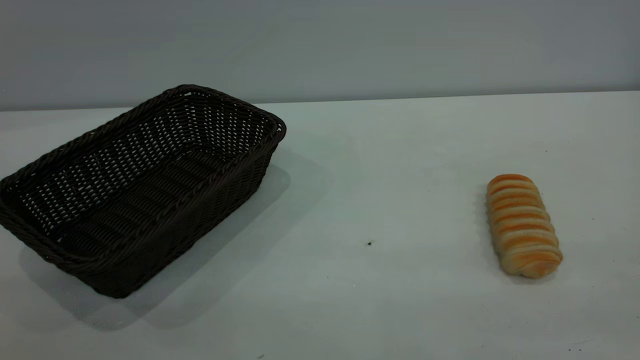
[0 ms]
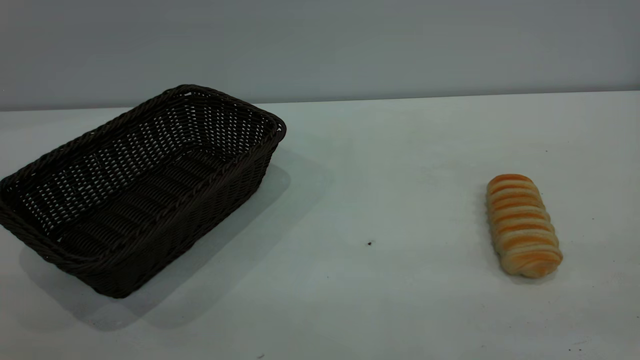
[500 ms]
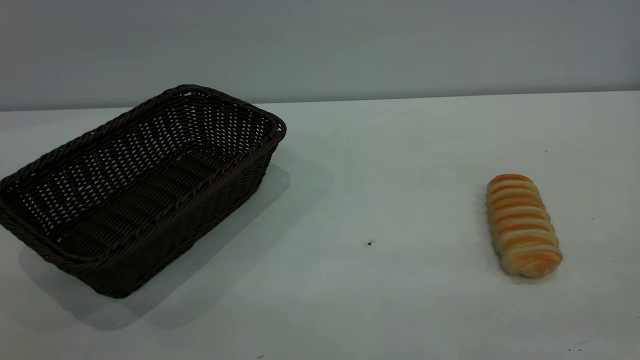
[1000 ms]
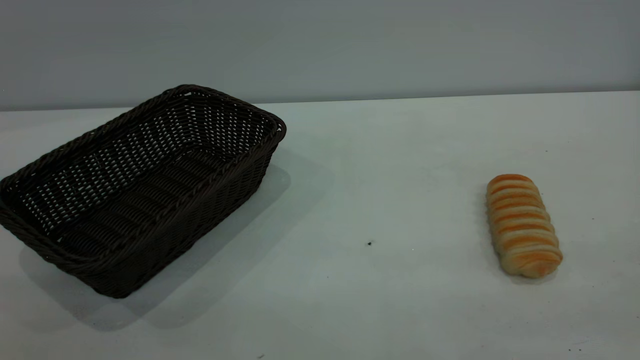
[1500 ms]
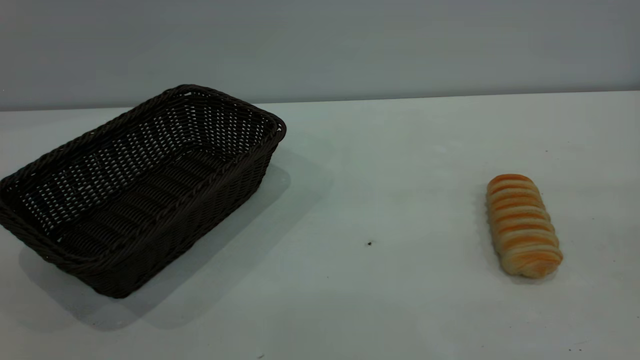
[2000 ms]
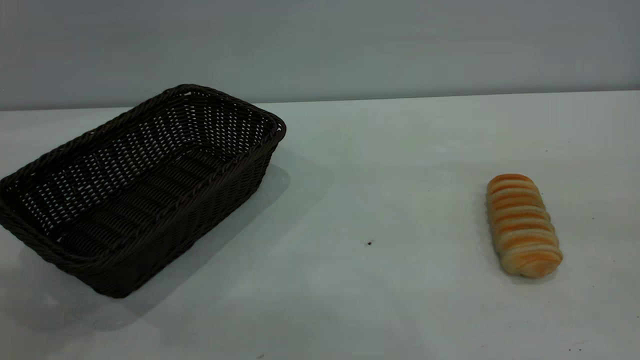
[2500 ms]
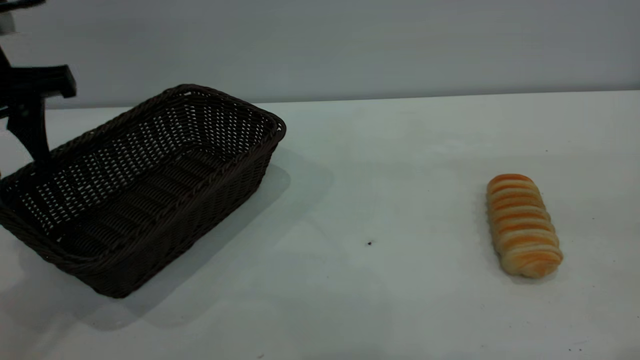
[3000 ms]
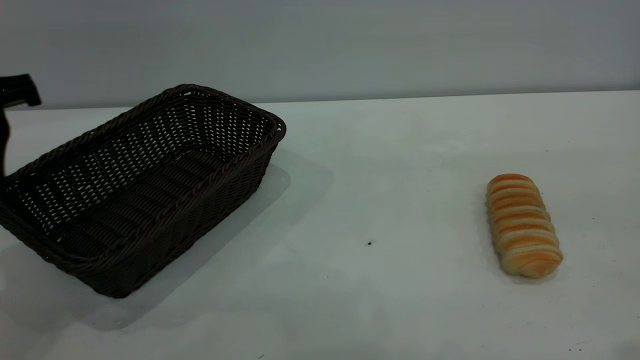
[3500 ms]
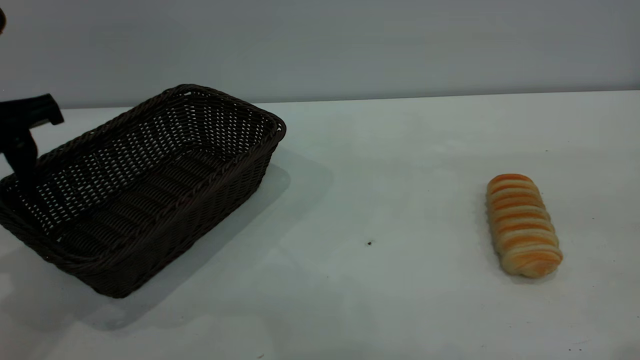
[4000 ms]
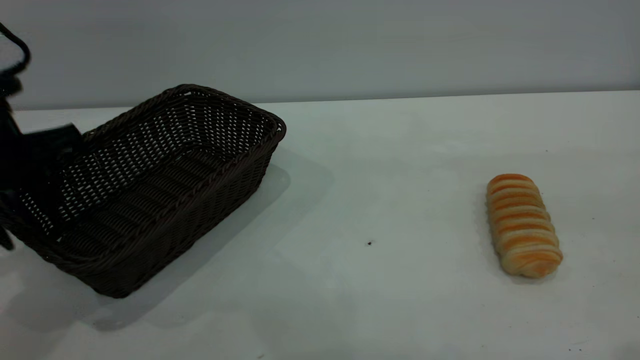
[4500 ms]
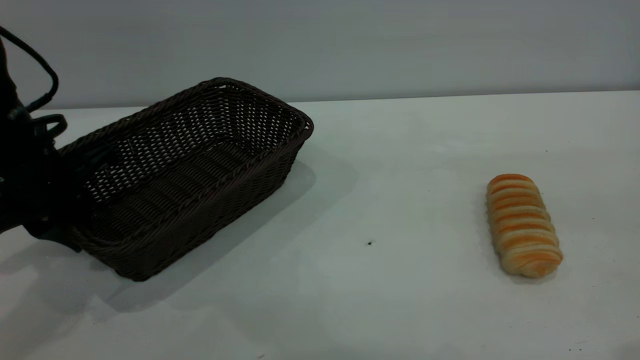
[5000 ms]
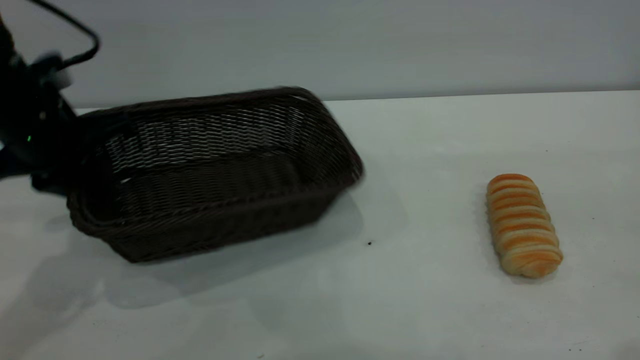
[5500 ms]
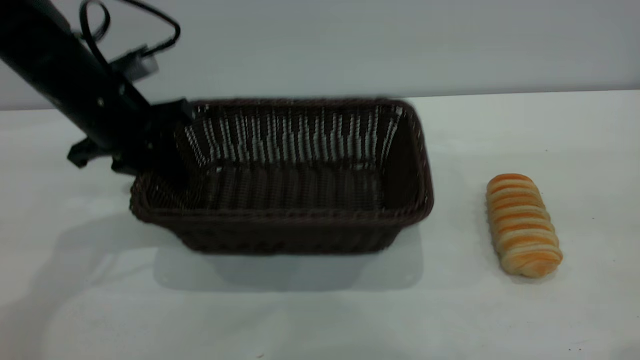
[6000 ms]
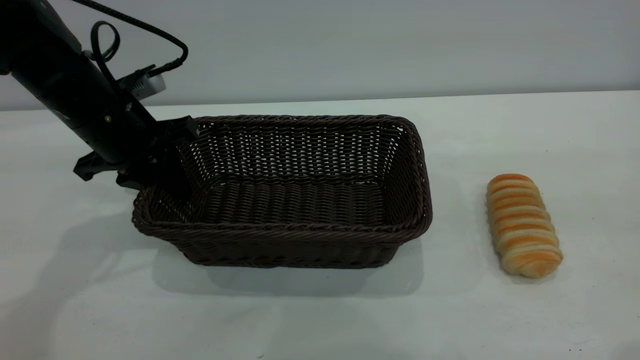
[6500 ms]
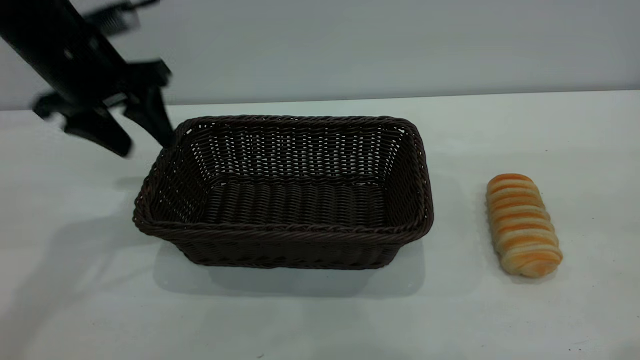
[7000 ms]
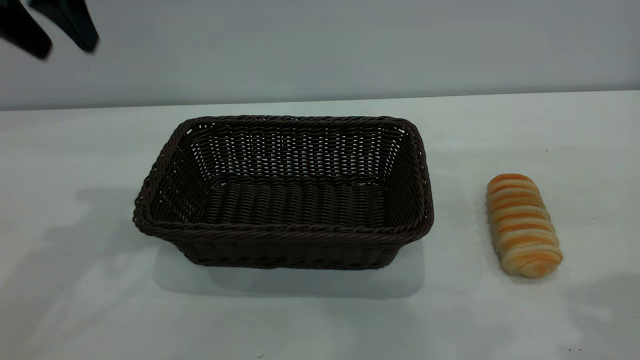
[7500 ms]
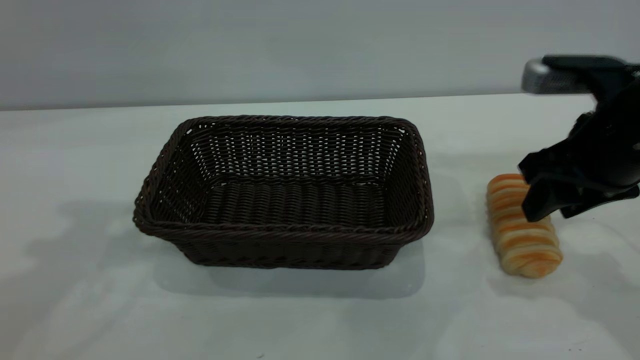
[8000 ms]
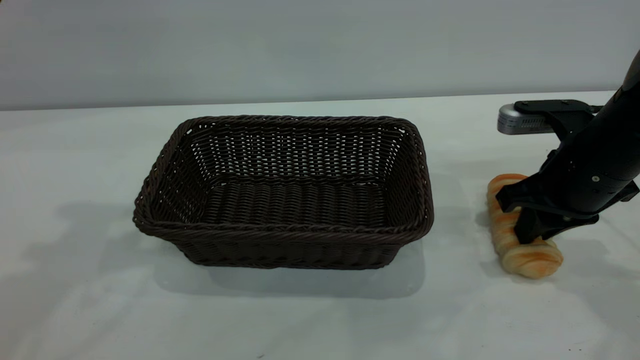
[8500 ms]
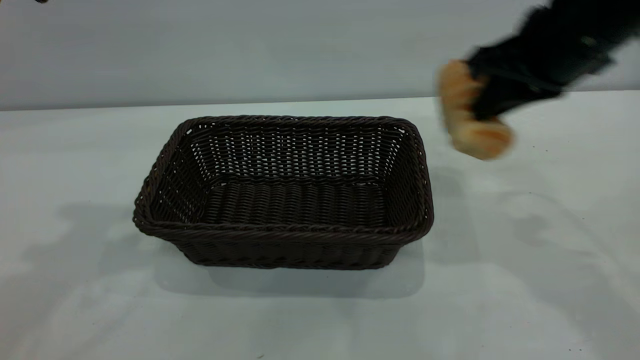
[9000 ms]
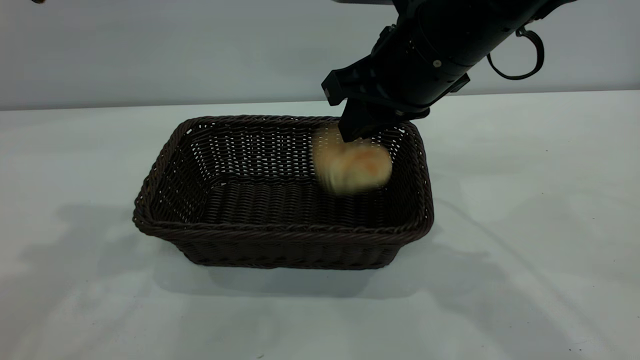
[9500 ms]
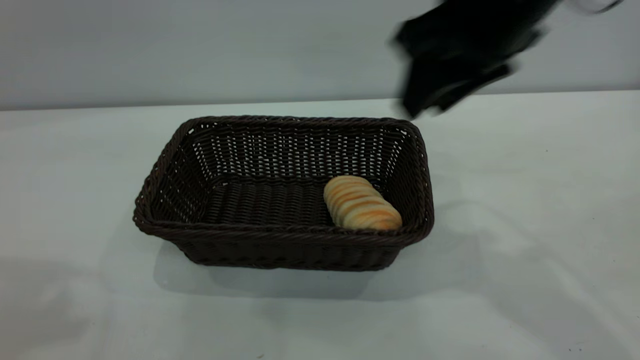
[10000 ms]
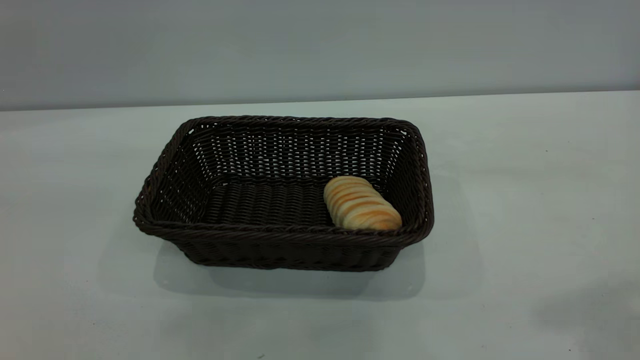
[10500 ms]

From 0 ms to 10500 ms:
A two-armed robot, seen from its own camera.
Task of the whole recording: One hand grasps the black basket and places it in the middle of the table, while the other hand picks up the long bread and puts it into the black basket.
Step, from 0 ms to 7000 ms: Move the basket to the center of view.
Step, from 9000 ms to 10000 ms: place the bread into the basket.
From 2000 ms to 4000 ms: The left gripper travels forward and downward by some 30 cm.
From 4000 ms to 6500 ms: The left gripper is displaced forward and downward by some 10 cm, and closes.
From 6500 ms to 8500 ms: The left gripper is displaced upward by some 25 cm, and opens. The right gripper is displaced downward and forward by some 30 cm, and closes up.
From 8500 ms to 10500 ms: The left gripper shifts approximately 25 cm backward. The right gripper moves upward and backward, roughly 35 cm, and opens.

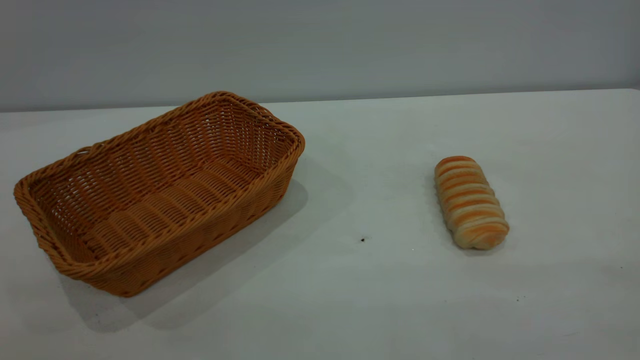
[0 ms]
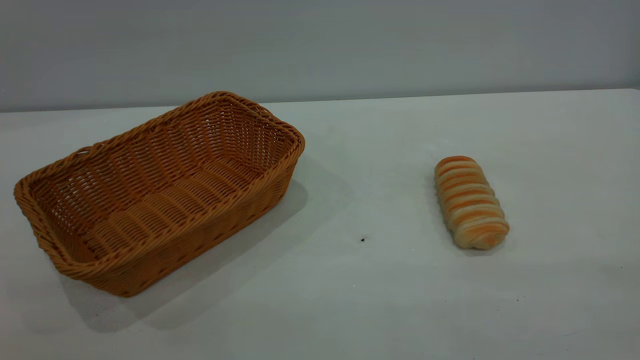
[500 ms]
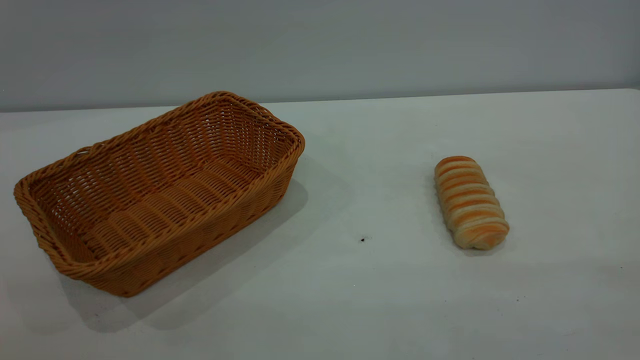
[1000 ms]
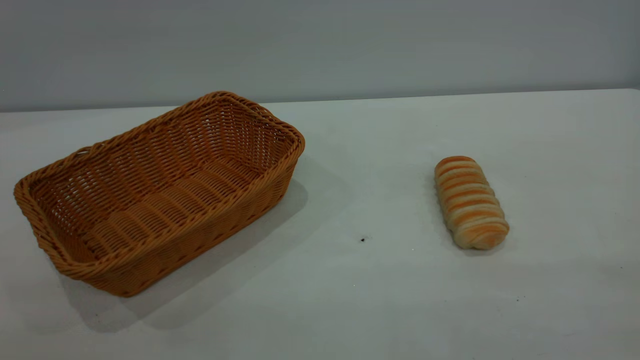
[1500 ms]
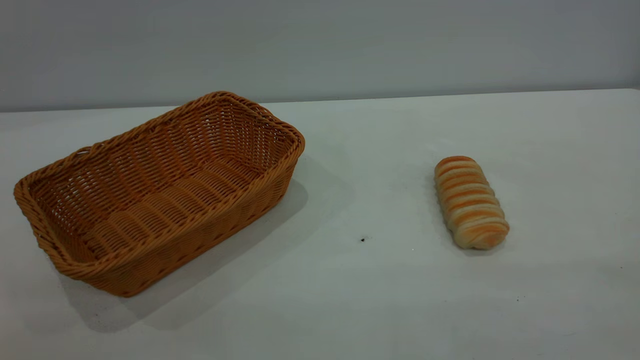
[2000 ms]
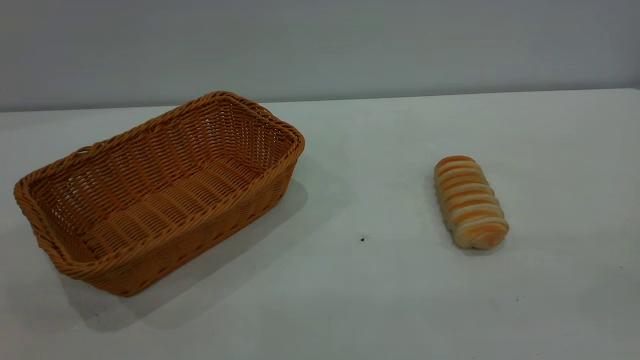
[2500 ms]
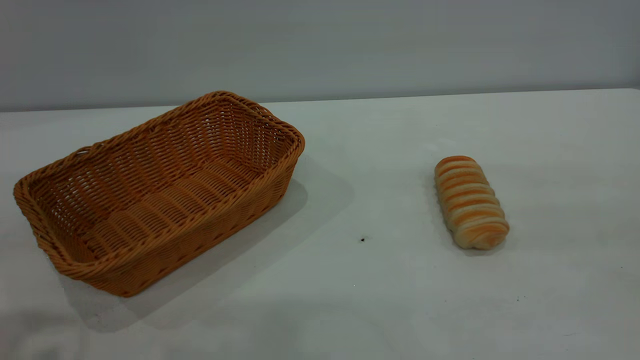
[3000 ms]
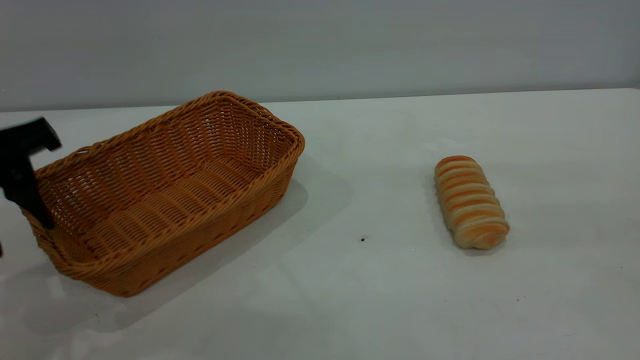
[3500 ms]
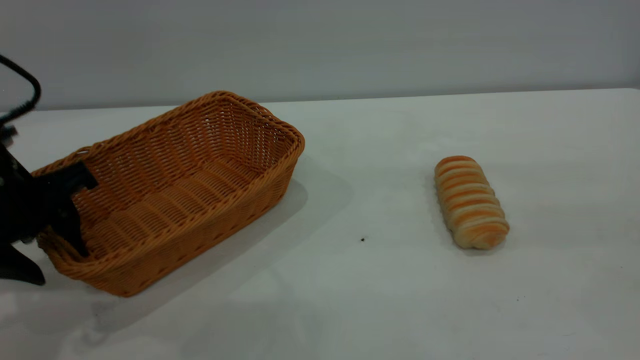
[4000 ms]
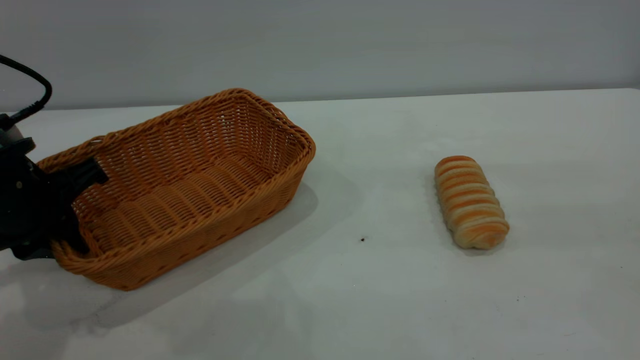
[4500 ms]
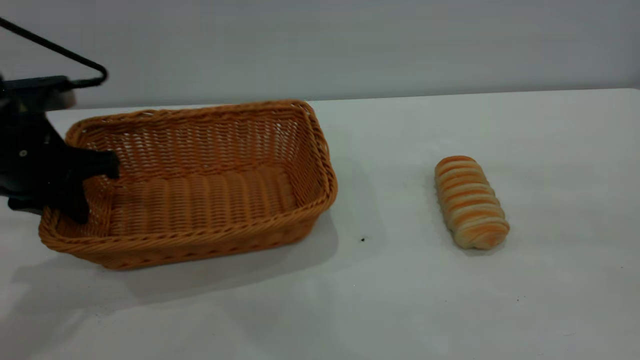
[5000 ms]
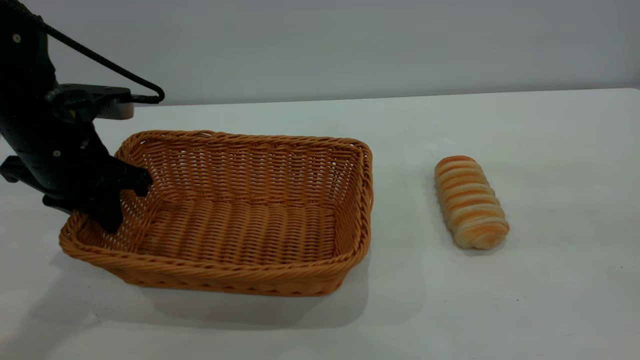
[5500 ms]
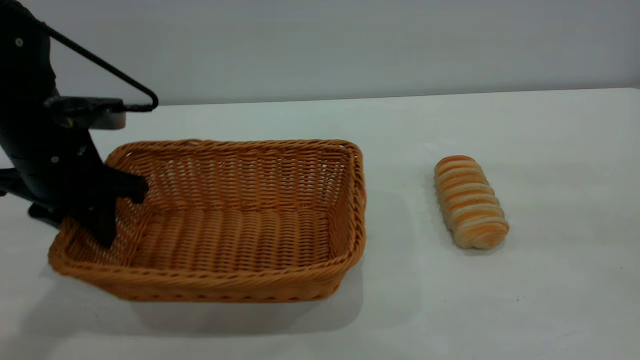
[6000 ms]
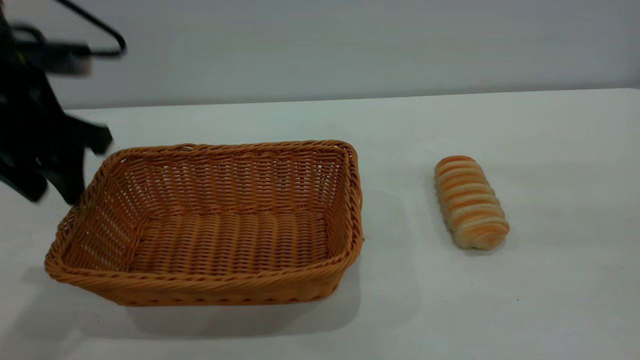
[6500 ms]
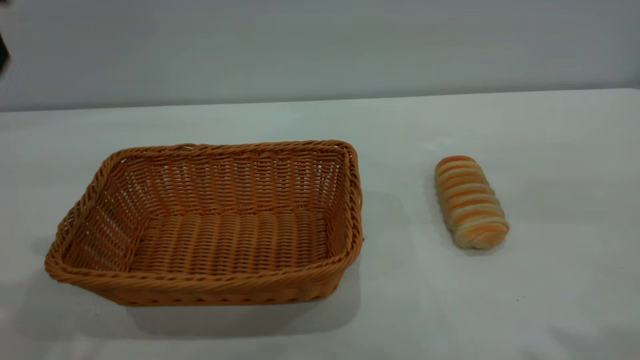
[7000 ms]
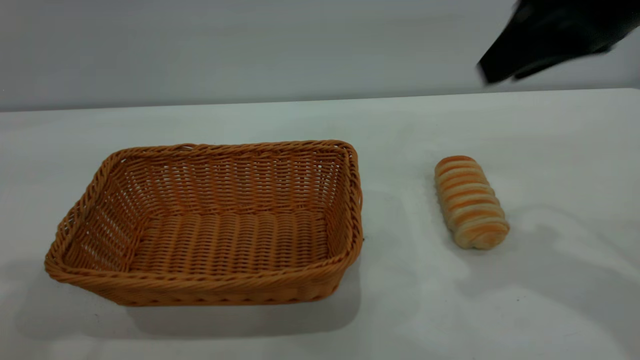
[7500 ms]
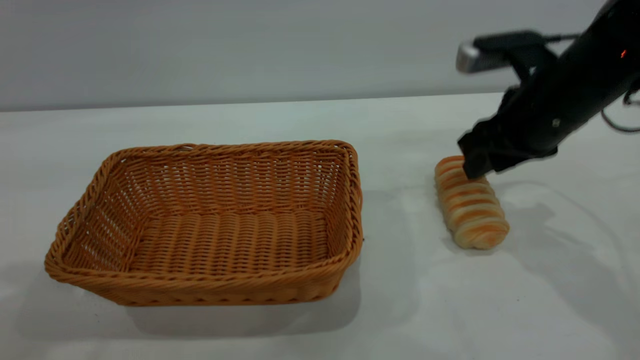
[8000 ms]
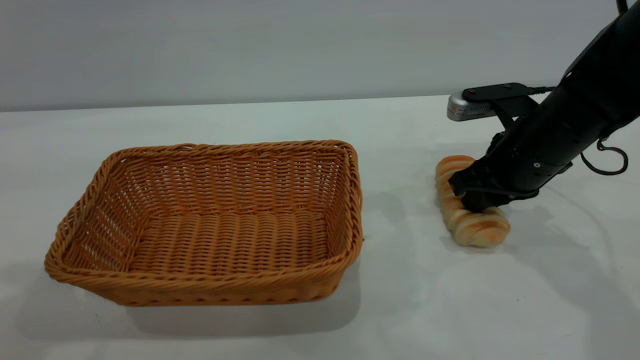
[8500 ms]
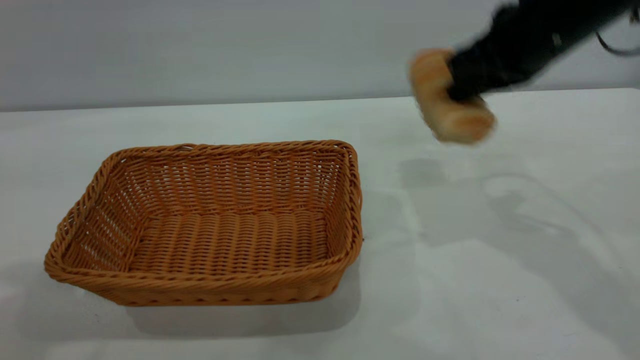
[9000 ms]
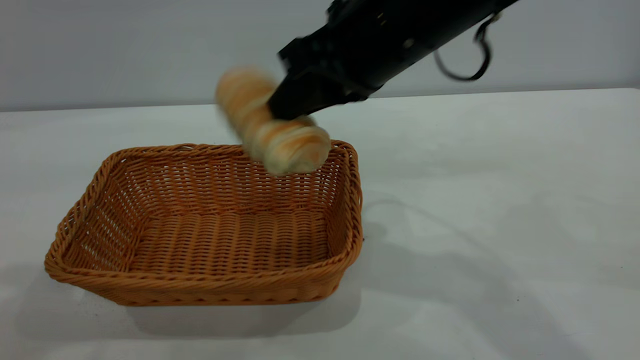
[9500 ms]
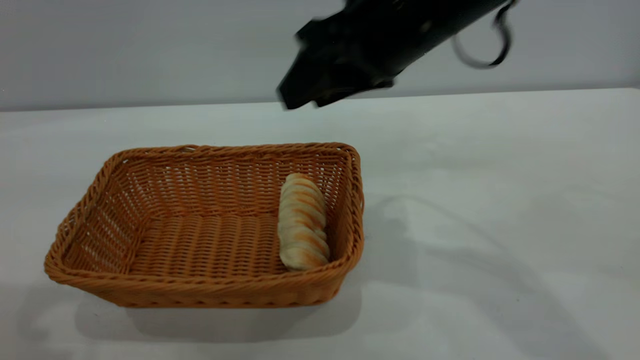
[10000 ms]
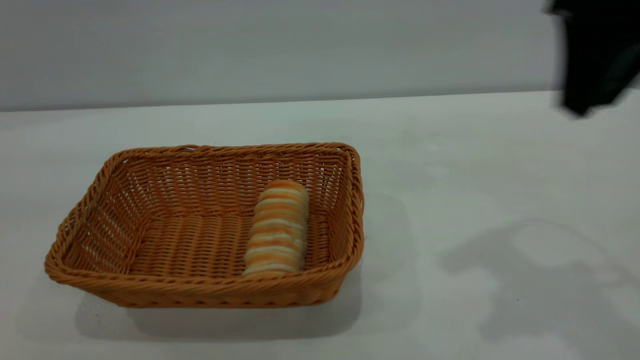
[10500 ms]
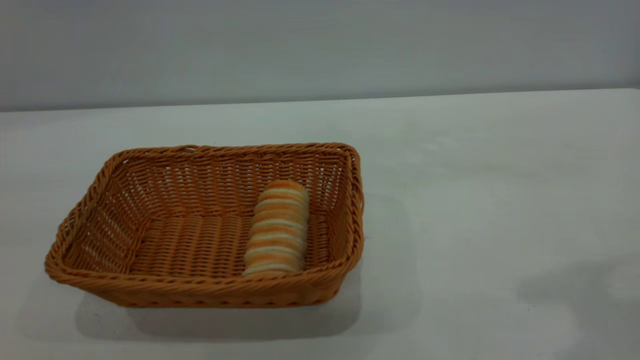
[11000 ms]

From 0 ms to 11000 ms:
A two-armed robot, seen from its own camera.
Task of the whole recording: One hand grasps the yellow basket and places it in the middle of the table, while the other hand picks up the long bread and puts it into the yellow basket.
Step, from 0 ms to 6000 ms: Move the basket to the center of view.
Step, from 9000 ms to 10000 ms: place the bread into the basket.
From 0 ms to 2000 ms: The two grippers keep their place.
From 2000 ms to 3500 ms: The left gripper is displaced forward and downward by roughly 30 cm.
From 3500 ms to 5500 ms: The left gripper moves forward and downward, about 10 cm, and closes up.
From 5500 ms to 7500 ms: The left gripper is displaced upward and backward by approximately 25 cm, and opens. The right gripper moves forward and downward, approximately 20 cm.
From 7500 ms to 9000 ms: The right gripper travels downward and back again, some 15 cm each way, and closes.
From 9000 ms to 11000 ms: The left gripper goes some 20 cm backward and upward. The right gripper travels upward and backward by approximately 25 cm, and opens up.
